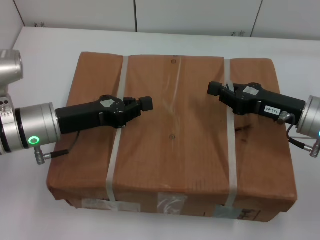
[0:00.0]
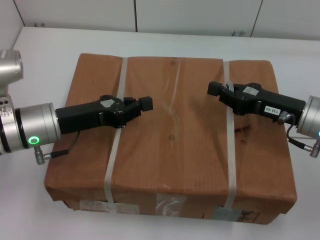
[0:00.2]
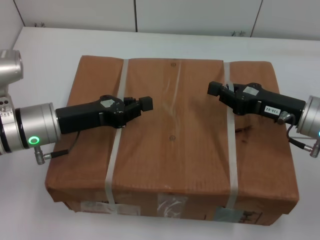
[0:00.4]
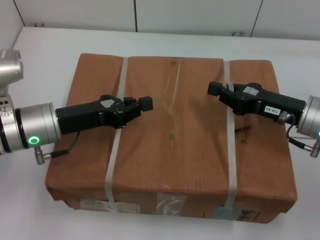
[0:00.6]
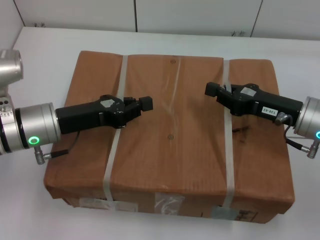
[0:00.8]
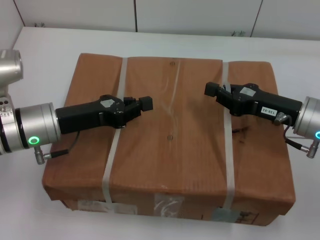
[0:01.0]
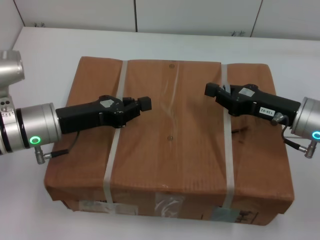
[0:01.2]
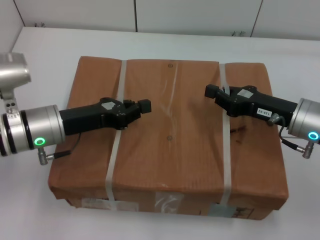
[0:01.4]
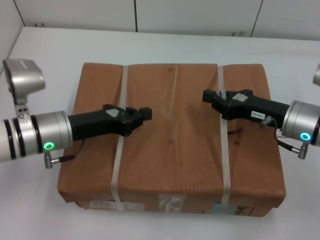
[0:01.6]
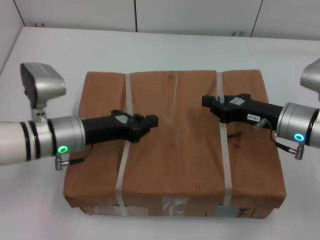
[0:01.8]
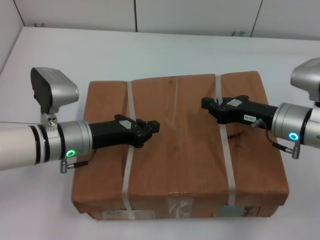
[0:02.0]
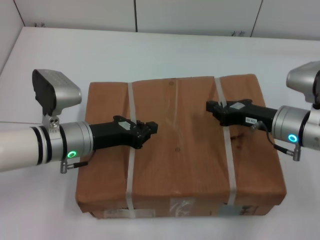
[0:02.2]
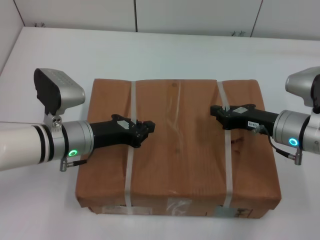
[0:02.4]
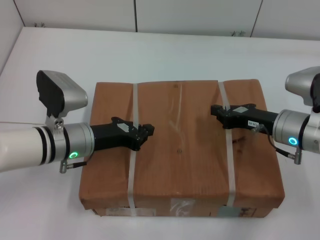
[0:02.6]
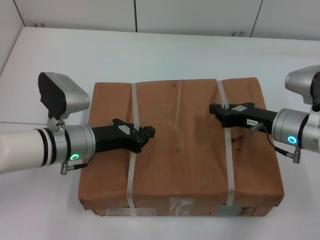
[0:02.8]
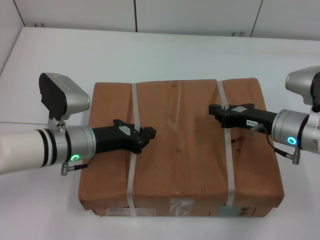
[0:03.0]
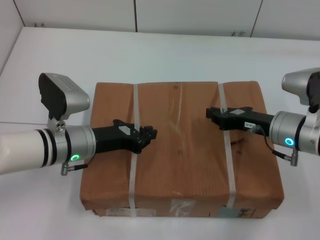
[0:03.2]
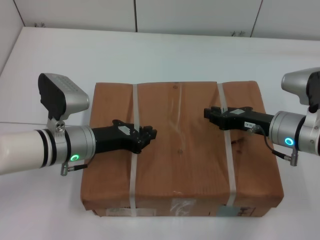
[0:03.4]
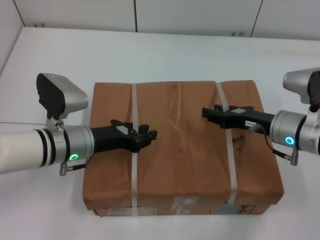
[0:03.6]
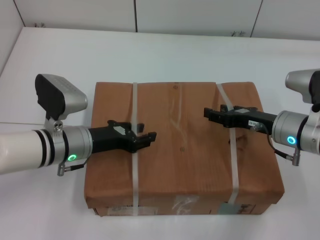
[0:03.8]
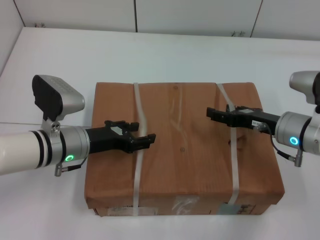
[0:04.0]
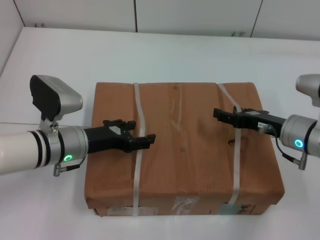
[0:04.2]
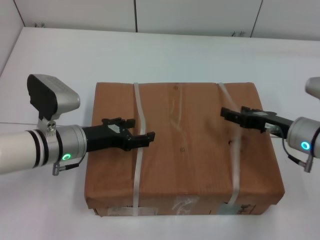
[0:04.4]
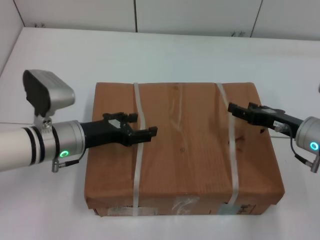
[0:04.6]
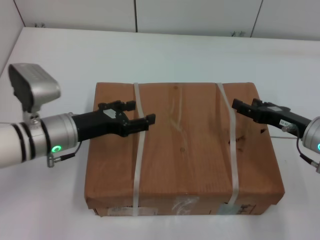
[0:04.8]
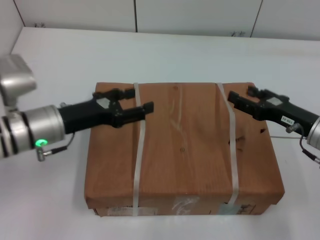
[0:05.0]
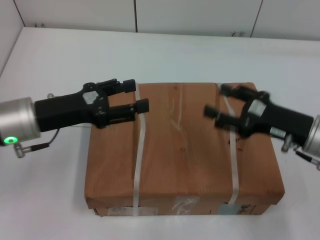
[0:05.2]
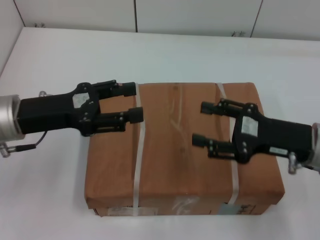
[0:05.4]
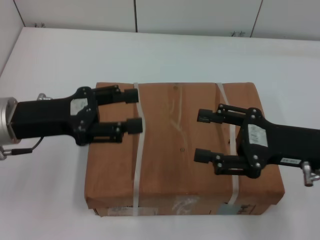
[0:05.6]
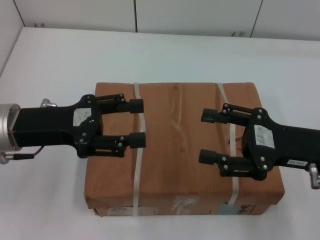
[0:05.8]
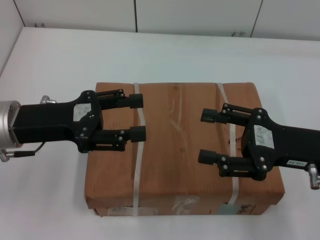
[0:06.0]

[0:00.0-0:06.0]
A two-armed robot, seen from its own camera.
Task of the whole recording: place the box on the table with both arms.
Step, 0:00.0 to 0:03.2: Place the box on the table with left gripper.
Step, 0:00.0 to 0:03.2: Place the box on the table with right gripper.
Step, 0:03.4 to 0:04.4: Loosen the box on the table with left gripper.
Step, 0:03.4 to 0:04.4: Loosen the box on the table with right gripper.
0:03.0 to 0:04.4: The left gripper opens its fingers; the right gripper opens up.
0:04.4 to 0:06.0: The right gripper is displaced upward and backward by some 10 cm. Meanwhile the left gripper travels upward and to the left by about 10 cm.
